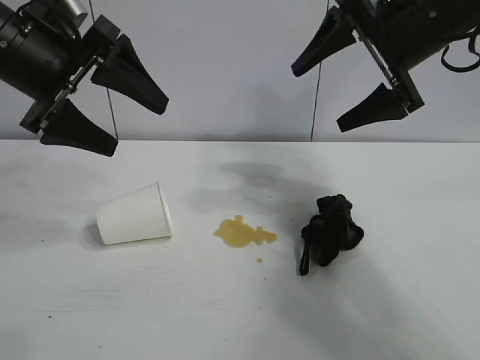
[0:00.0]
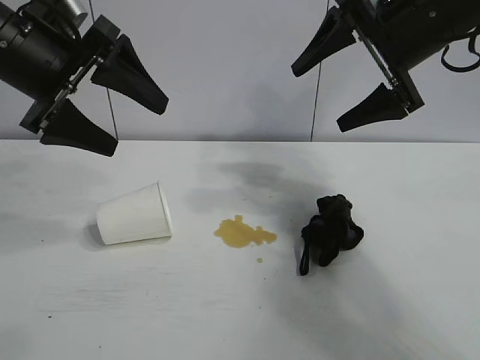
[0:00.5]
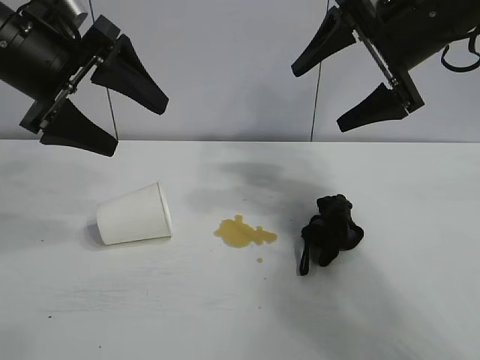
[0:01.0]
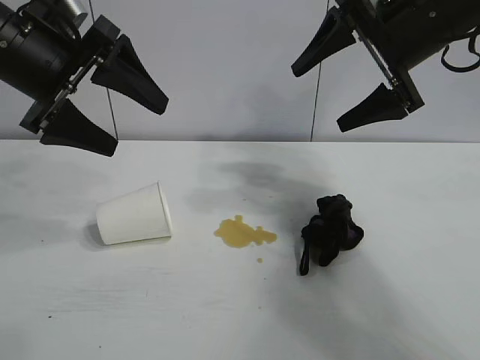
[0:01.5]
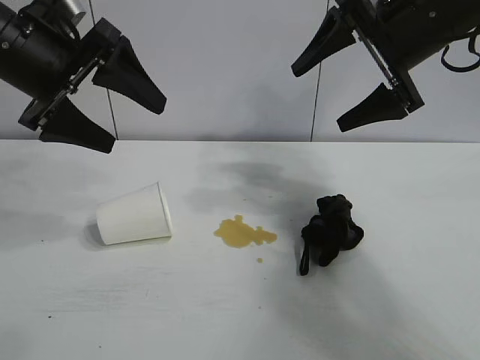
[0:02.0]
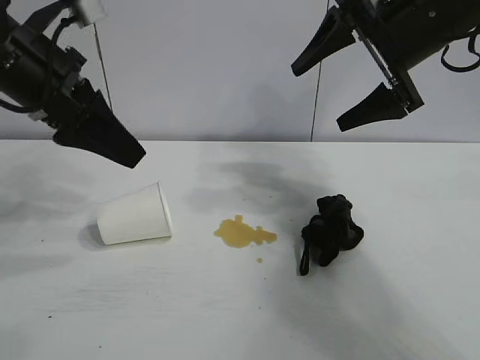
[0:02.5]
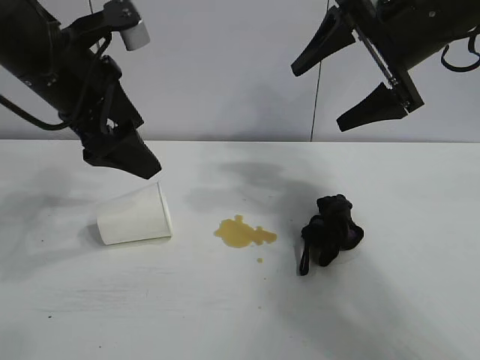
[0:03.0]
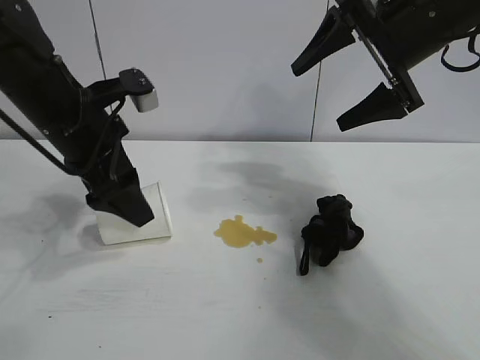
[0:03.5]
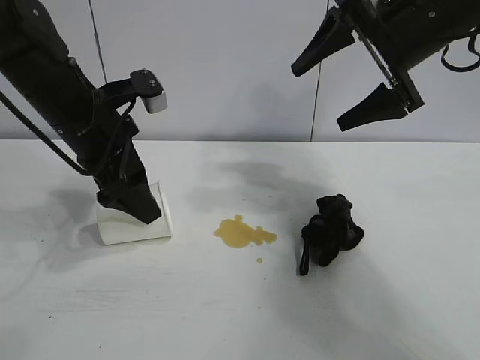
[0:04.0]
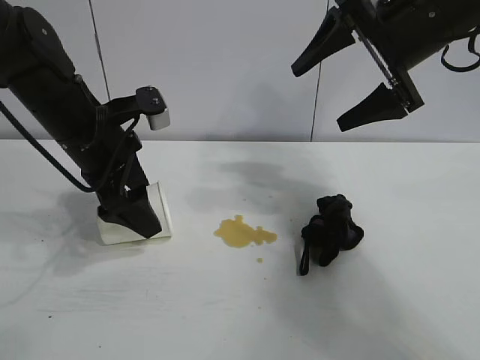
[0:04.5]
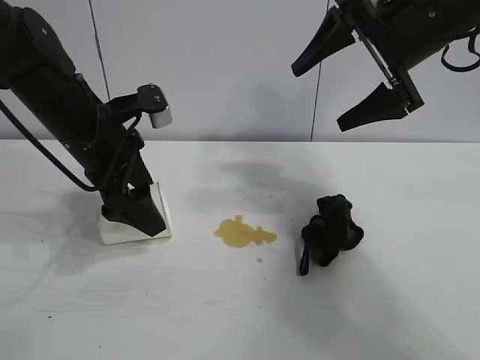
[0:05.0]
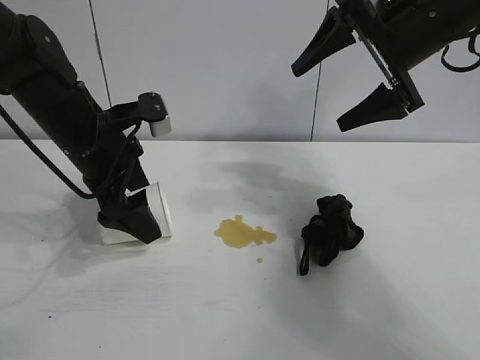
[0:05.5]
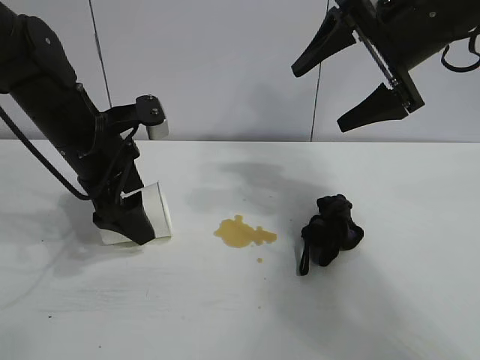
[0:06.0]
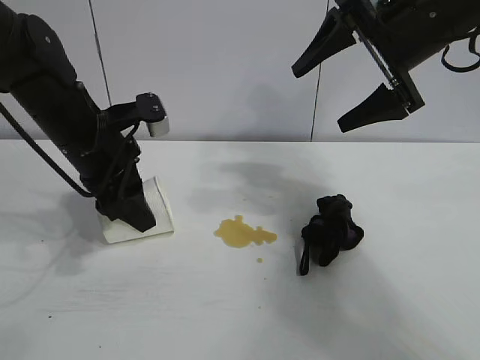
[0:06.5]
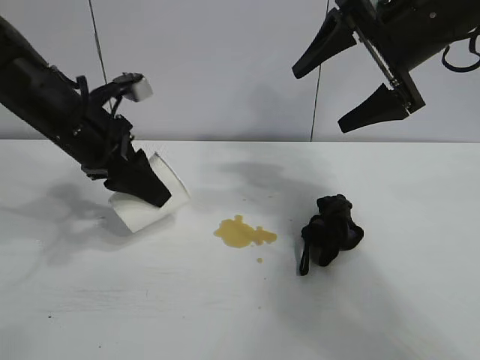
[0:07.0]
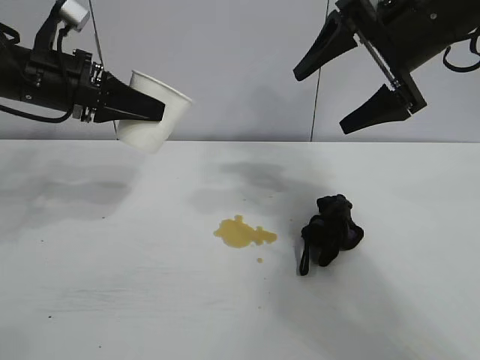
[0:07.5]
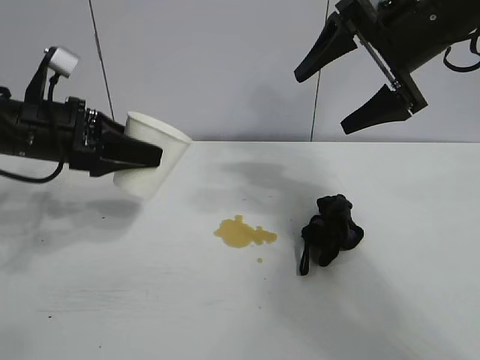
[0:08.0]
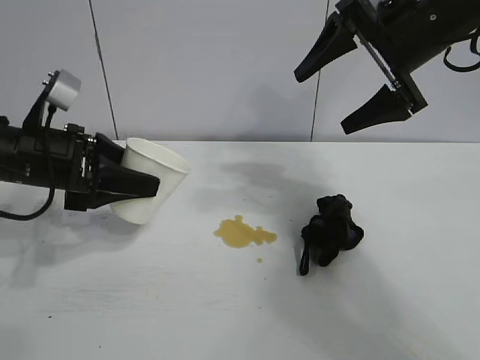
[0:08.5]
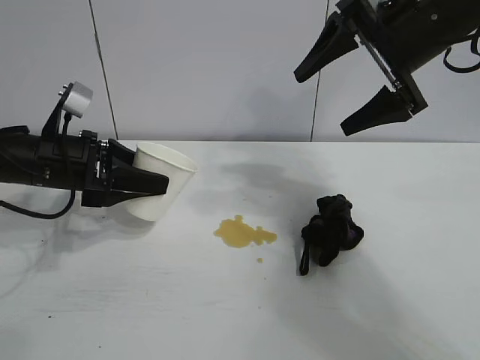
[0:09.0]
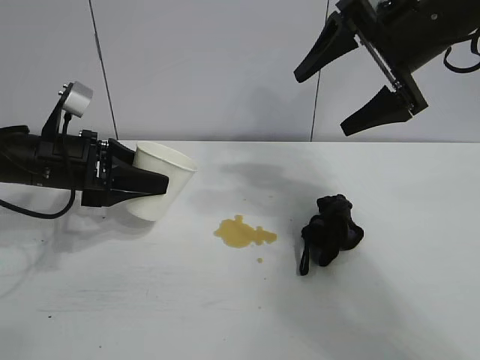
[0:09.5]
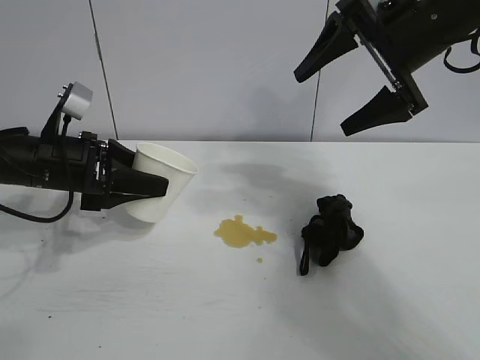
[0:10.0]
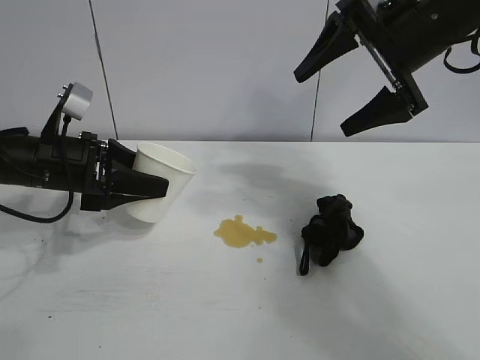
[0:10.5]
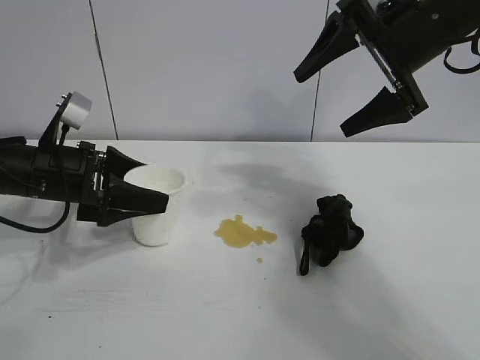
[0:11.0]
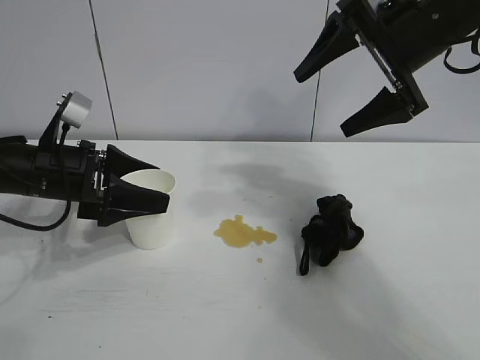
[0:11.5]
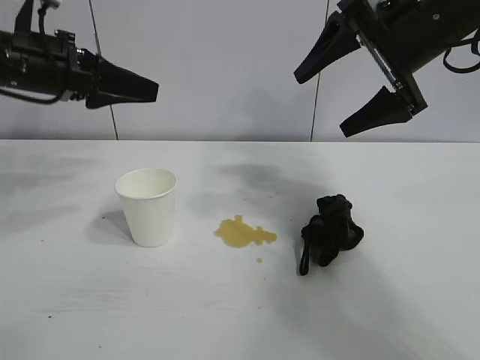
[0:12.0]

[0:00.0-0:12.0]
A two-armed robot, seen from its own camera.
Task of the whole recording: the left gripper pick up the fallen cup and place it upright, the right gripper grasp the black rag and wipe the stain on the table, the right gripper put the black rag back in its original position.
Step, 0:02.0 to 0:06.0: Grasp the paper cup with left gripper.
Step, 0:06.5 to 0:11.0: Stand the paper cup upright with left gripper.

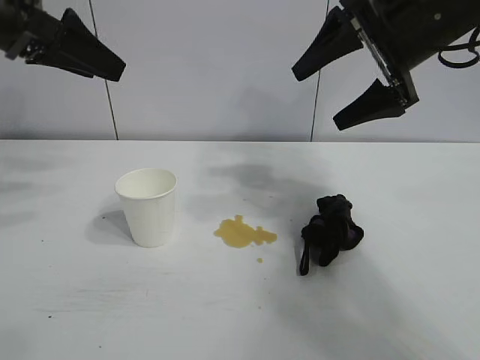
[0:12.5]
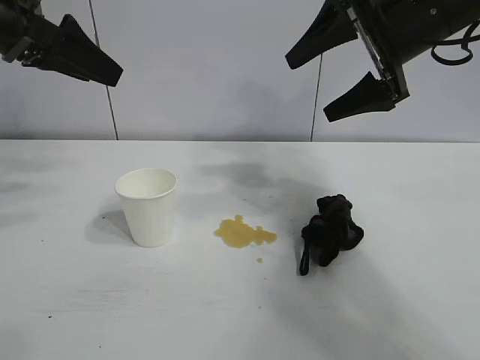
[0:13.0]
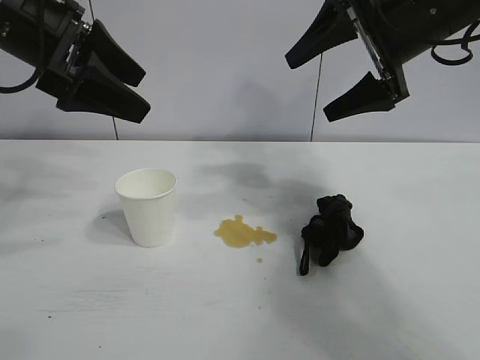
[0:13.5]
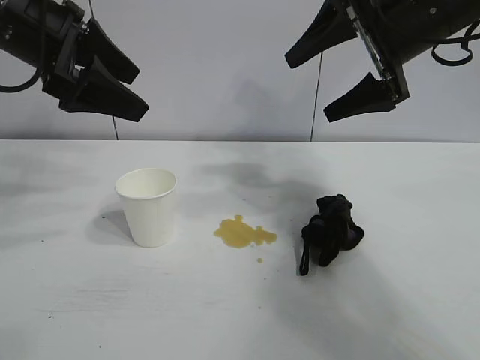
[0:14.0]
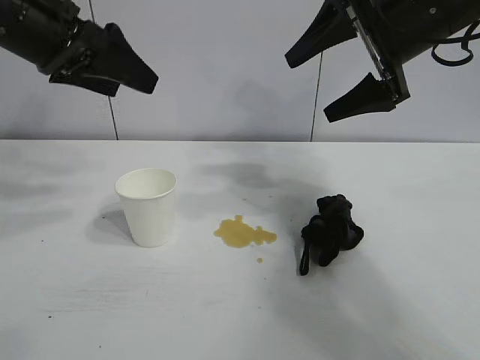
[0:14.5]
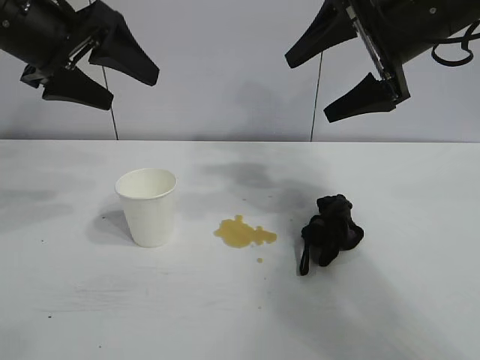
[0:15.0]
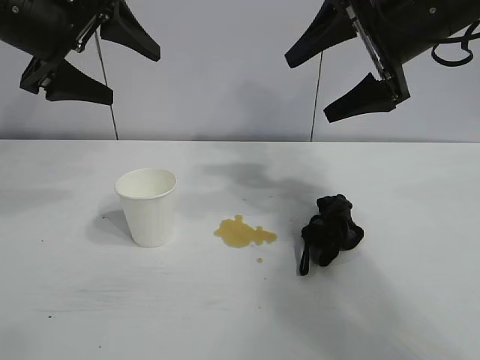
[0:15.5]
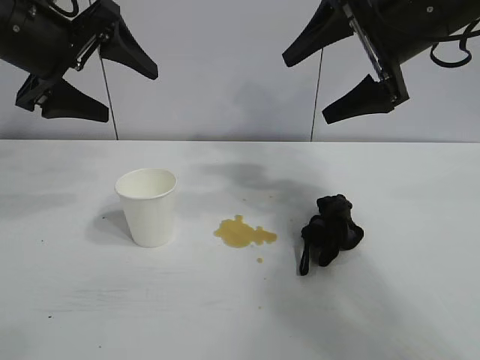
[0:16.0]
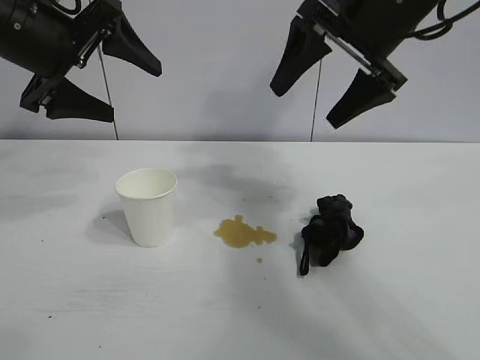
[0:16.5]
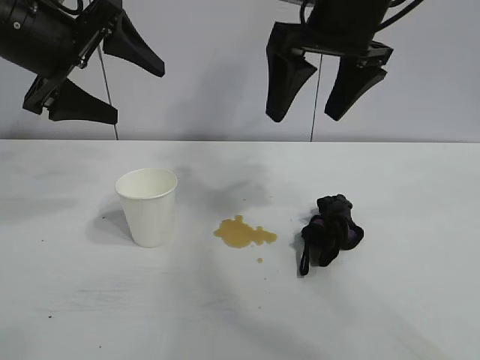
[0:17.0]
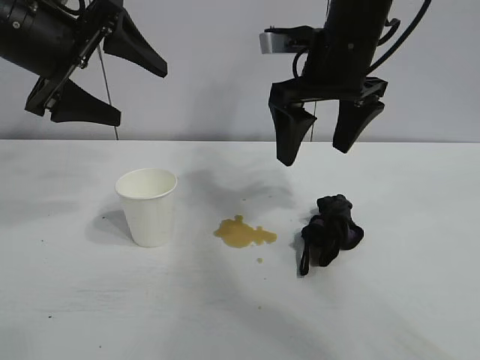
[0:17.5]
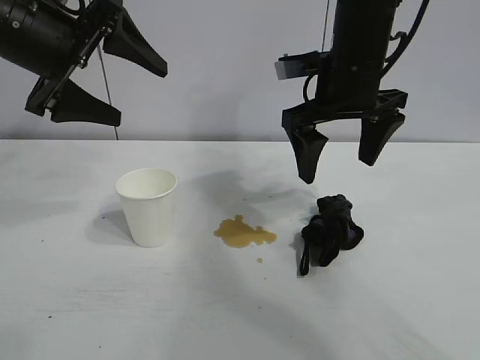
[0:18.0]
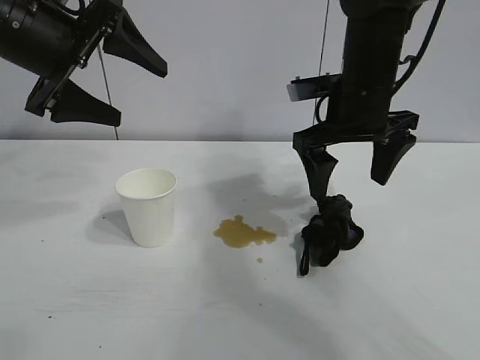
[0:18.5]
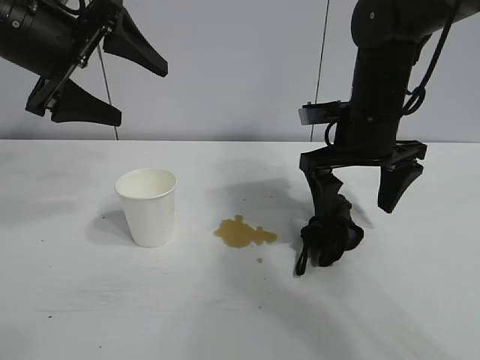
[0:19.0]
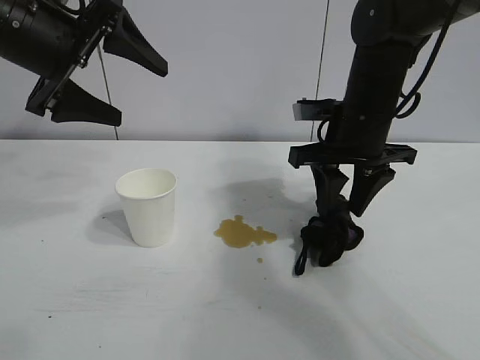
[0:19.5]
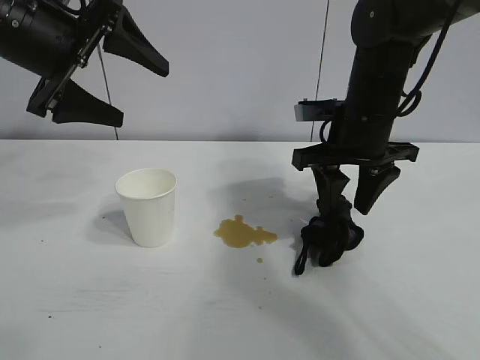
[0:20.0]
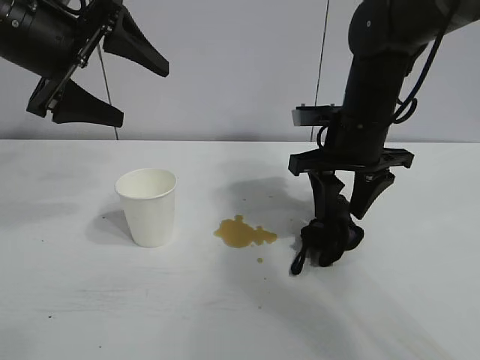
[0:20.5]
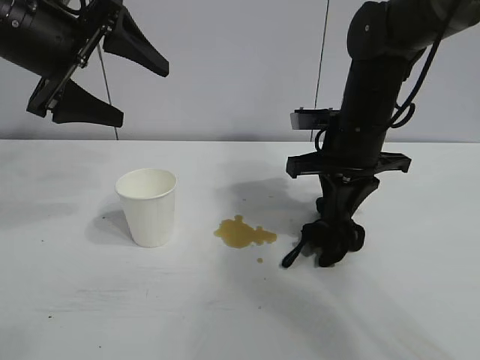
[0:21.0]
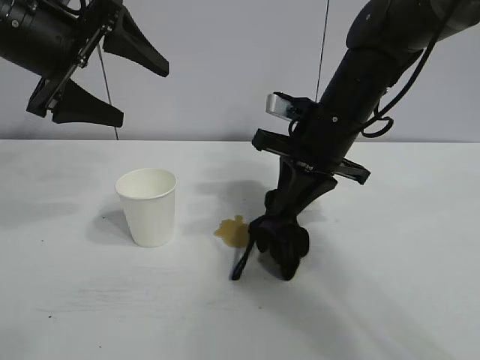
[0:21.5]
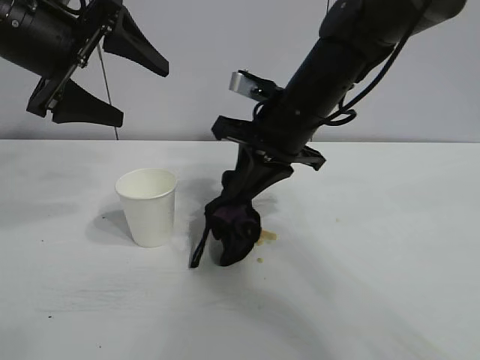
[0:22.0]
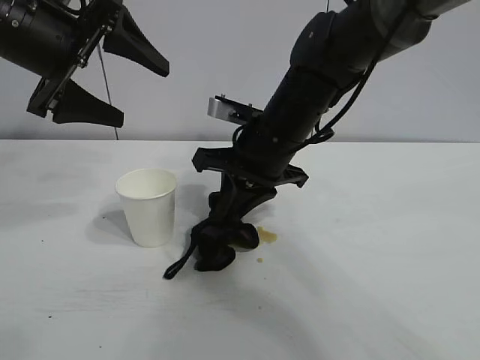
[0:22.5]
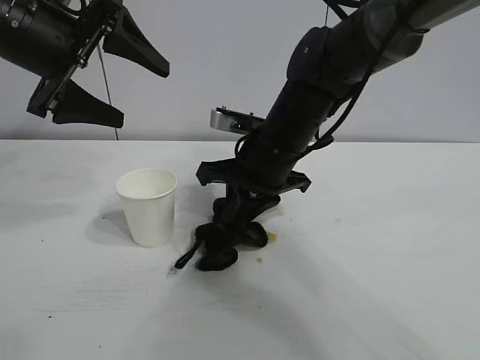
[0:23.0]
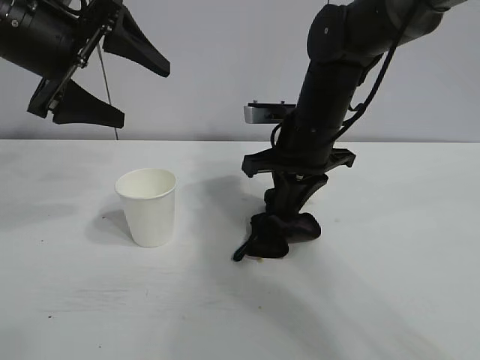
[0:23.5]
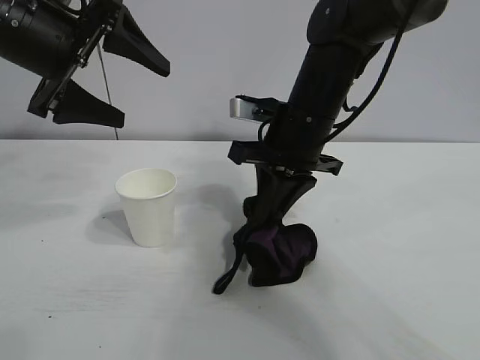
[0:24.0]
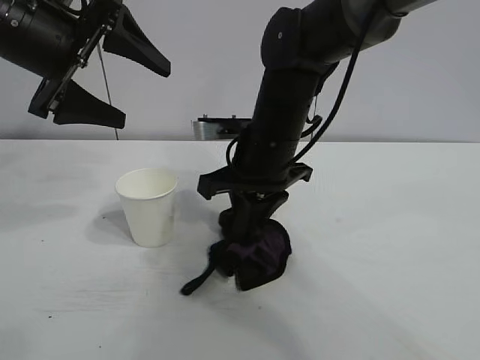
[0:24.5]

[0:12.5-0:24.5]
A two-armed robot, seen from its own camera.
Task of the whole recording: the left gripper pick up the fallen cup and place it upright, the right gripper grasp the black rag and wipe the stain on the table, the right gripper put the black rag back in its original position.
Step, 0:12.5 to 0:21.0: Grasp the rag with right gripper.
